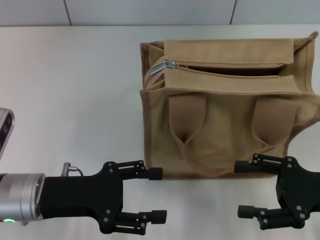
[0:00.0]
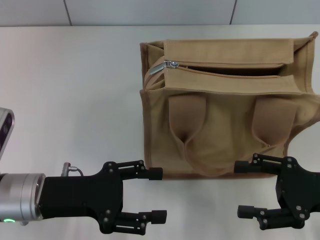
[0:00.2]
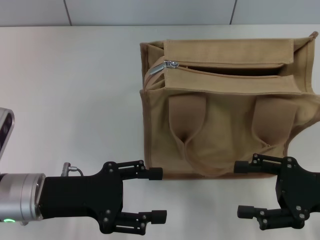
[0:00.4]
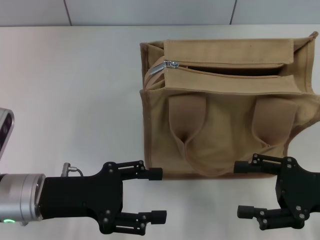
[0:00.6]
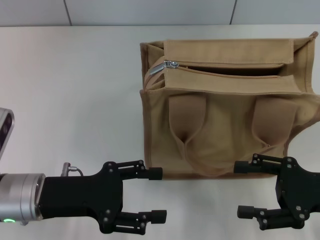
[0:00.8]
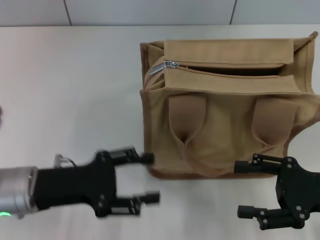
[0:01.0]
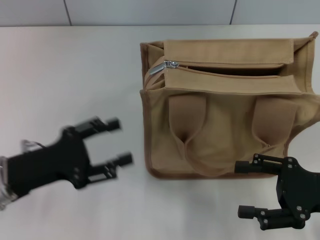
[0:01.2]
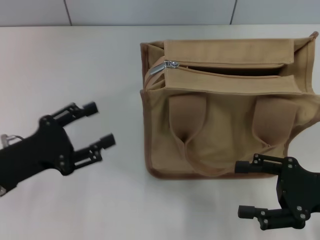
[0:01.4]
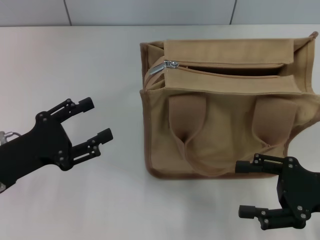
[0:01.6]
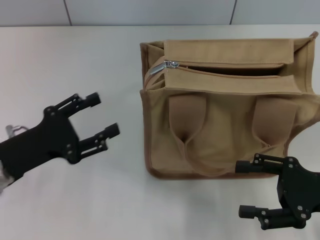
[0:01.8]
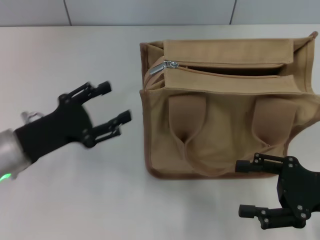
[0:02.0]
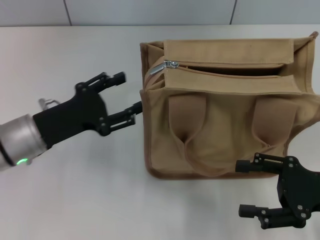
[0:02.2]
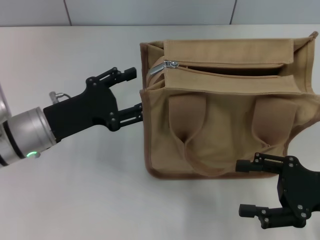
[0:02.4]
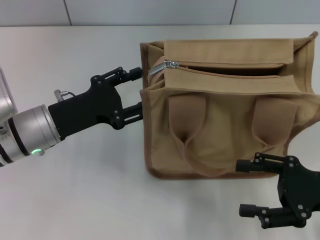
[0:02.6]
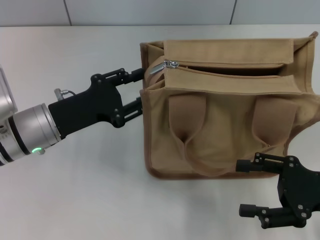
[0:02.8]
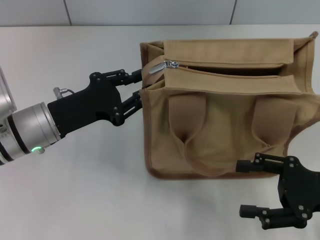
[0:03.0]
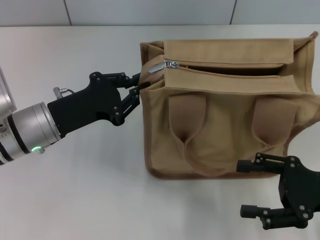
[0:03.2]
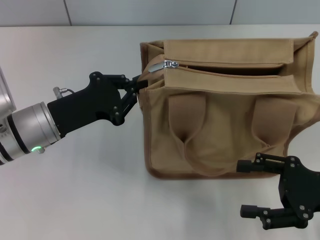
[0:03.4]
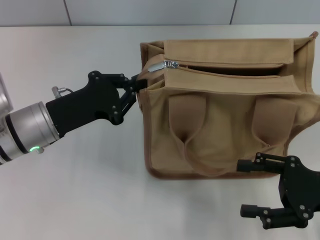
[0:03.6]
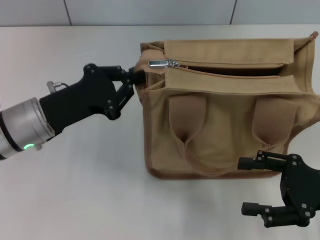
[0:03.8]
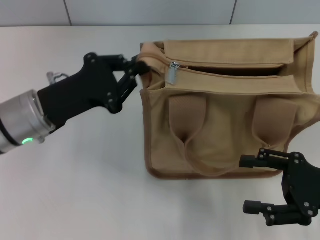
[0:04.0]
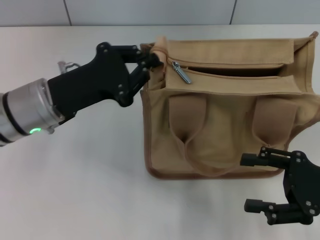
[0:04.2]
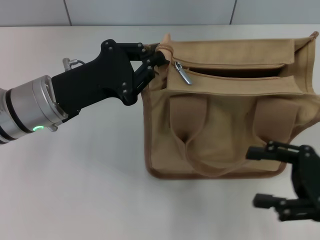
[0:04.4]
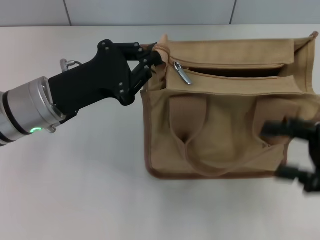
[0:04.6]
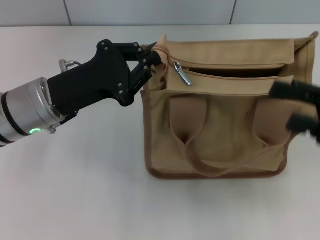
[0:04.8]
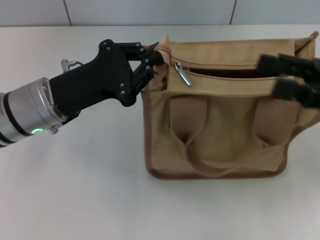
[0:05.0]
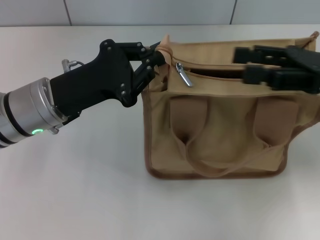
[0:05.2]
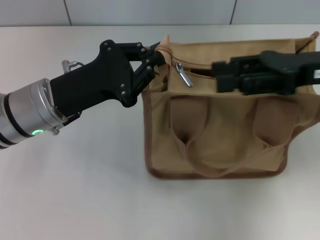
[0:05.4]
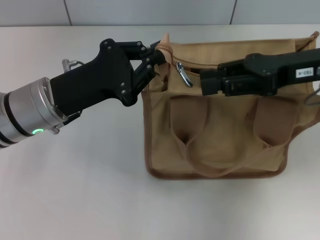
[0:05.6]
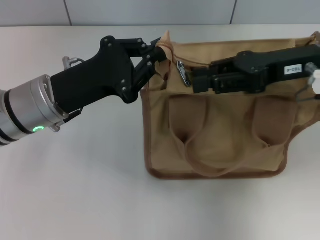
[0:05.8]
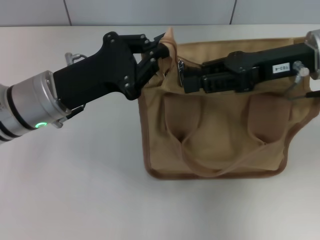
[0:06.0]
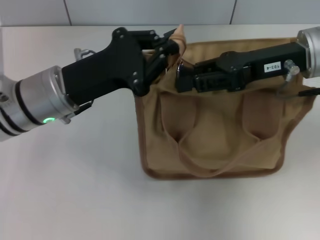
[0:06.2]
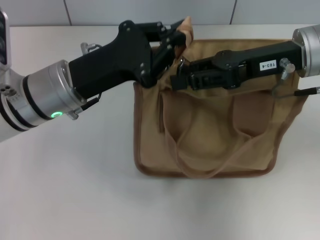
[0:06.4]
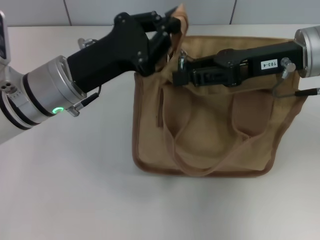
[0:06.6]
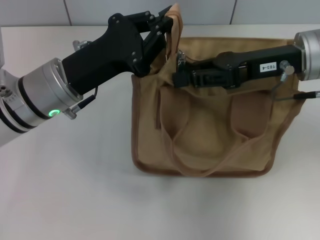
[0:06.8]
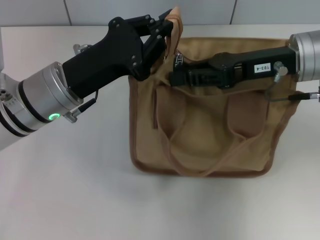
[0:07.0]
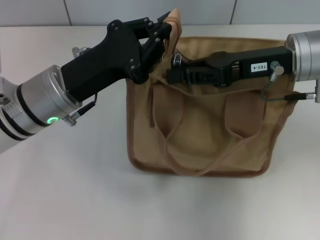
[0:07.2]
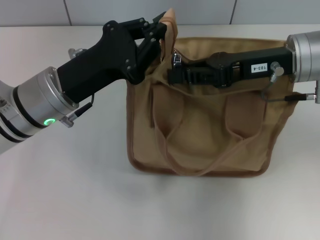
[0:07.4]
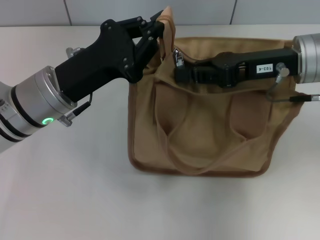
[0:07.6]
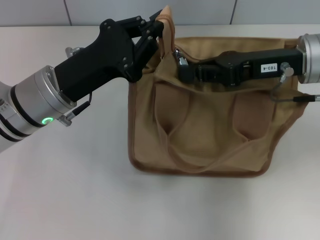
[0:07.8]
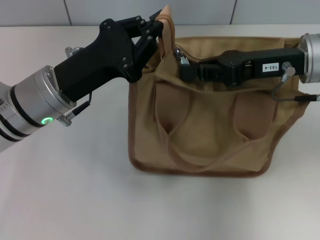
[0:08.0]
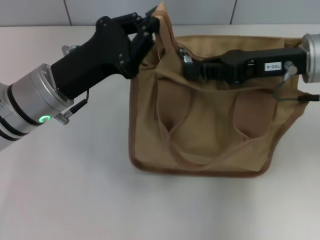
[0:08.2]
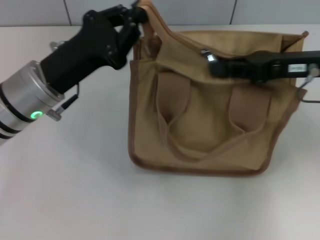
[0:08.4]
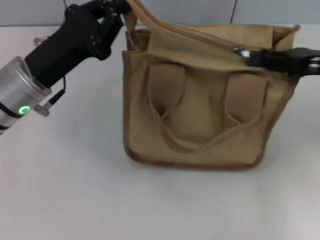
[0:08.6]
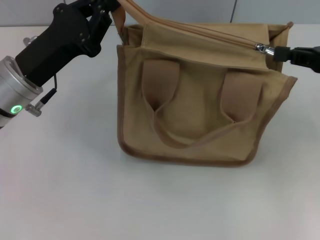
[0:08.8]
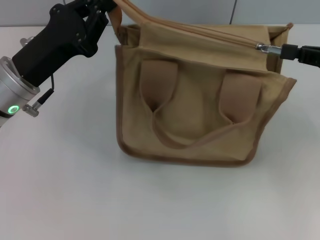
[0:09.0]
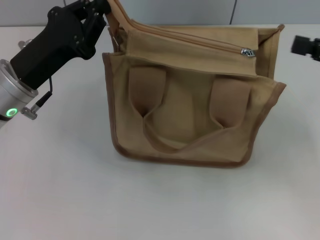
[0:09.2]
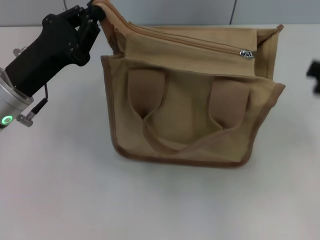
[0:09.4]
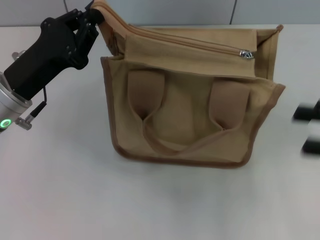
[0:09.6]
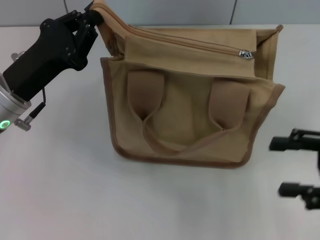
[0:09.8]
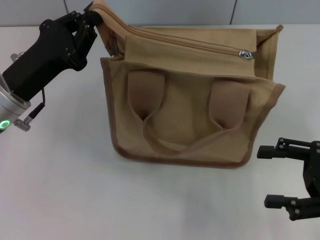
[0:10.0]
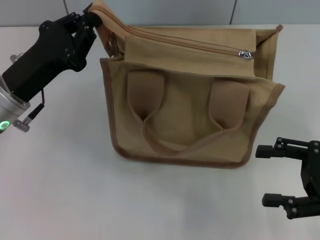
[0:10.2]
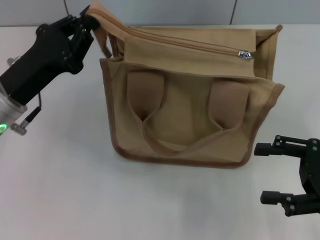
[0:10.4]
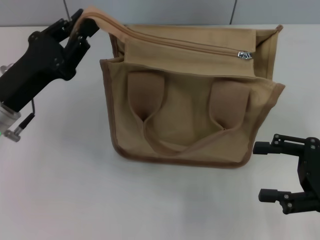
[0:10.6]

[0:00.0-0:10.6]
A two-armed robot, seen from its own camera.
Step, 0:00.0 to 0:09.0: Pull up the zipper with your right hand.
0:00.0 to 0:01.6: The left gripper is displaced to the left by about 5 cm.
0:01.6 to 0:03.0: The left gripper heads forward and to the right, covering about 10 cm.
0:03.0 to 0:04.6: The left gripper closes.
0:04.6 to 0:06.0: The right gripper travels forward, to the left and upward by some 15 cm, and closes up.
0:06.0 to 0:07.6: The right gripper closes.
0:07.6 to 0:09.0: The right gripper goes about 15 cm to the right.
0:09.0 to 0:10.6: The right gripper heads backward and downward, covering approximately 10 cm, and opens up.

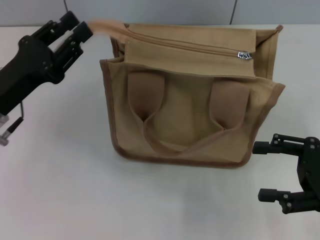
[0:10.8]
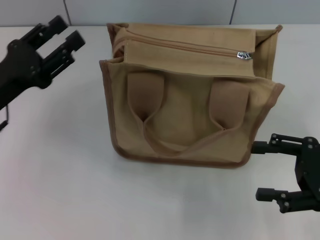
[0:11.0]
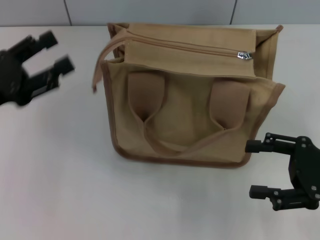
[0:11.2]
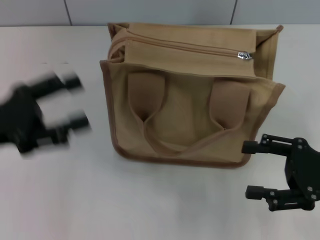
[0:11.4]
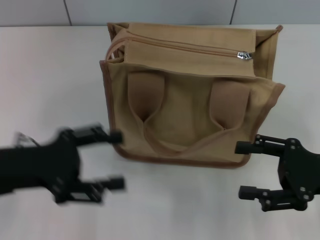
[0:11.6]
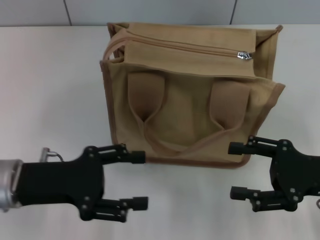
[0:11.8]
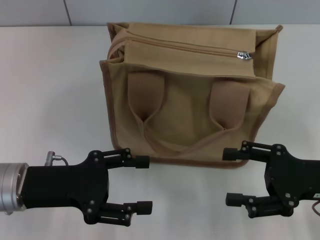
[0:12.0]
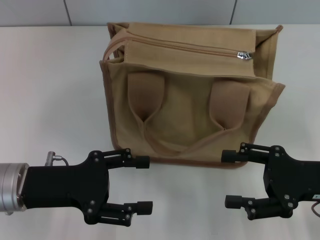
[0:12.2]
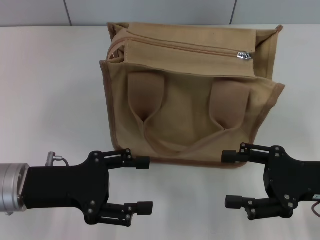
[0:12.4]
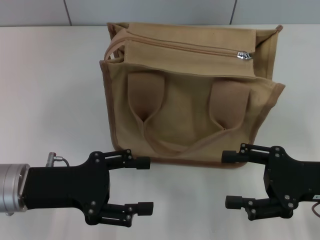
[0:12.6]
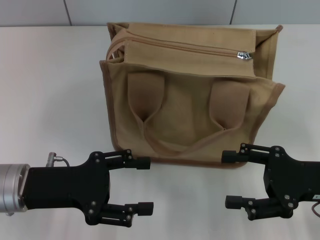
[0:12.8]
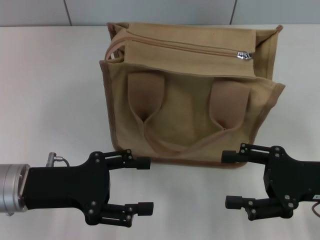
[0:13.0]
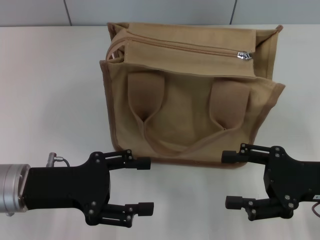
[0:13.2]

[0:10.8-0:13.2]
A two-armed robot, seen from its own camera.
0:10.8 to 0:12.0: The left gripper changes place by approximately 5 cm, and opens up.
0:12.0 to 0:13.2: The two grippers keep their place.

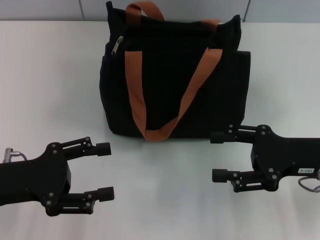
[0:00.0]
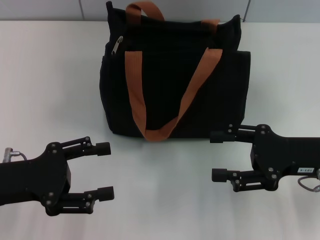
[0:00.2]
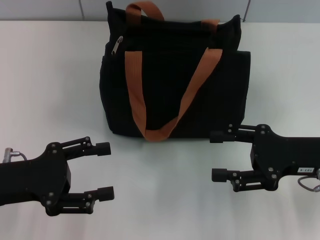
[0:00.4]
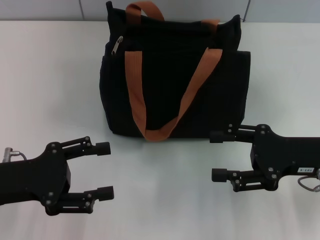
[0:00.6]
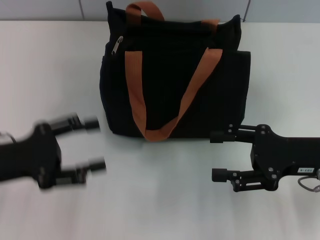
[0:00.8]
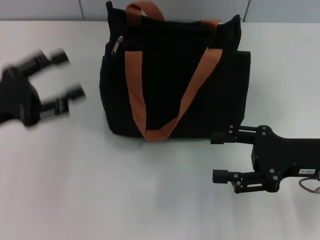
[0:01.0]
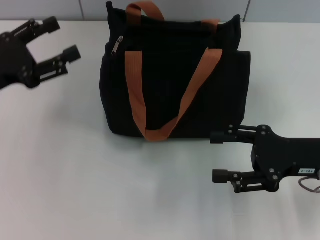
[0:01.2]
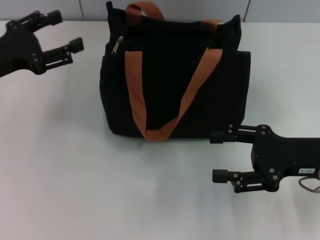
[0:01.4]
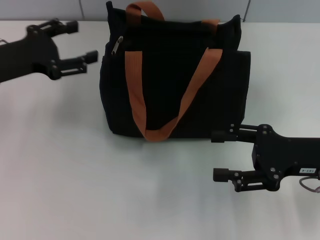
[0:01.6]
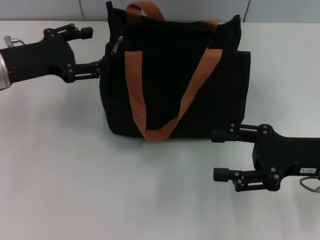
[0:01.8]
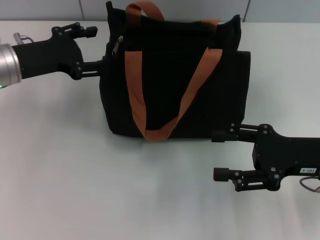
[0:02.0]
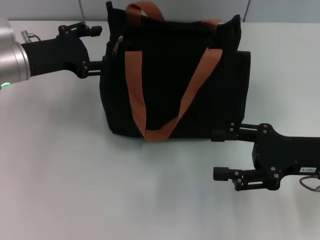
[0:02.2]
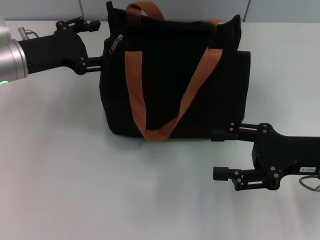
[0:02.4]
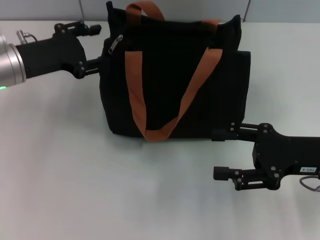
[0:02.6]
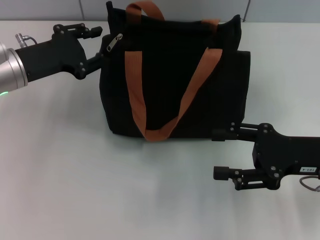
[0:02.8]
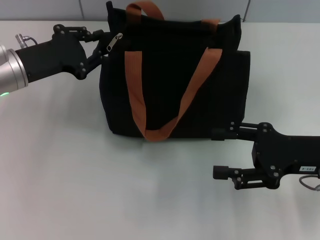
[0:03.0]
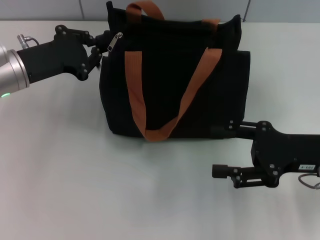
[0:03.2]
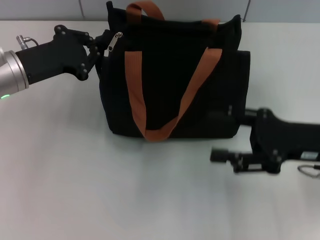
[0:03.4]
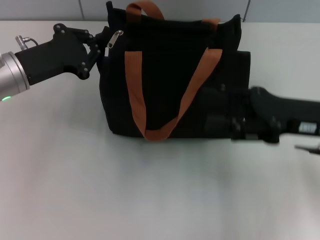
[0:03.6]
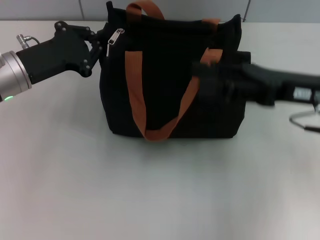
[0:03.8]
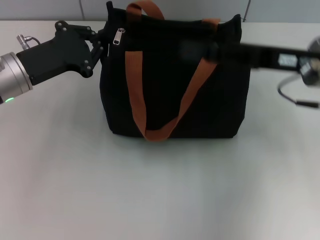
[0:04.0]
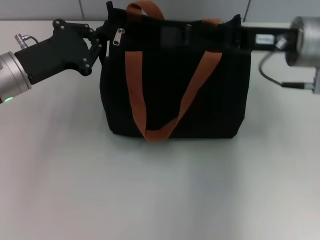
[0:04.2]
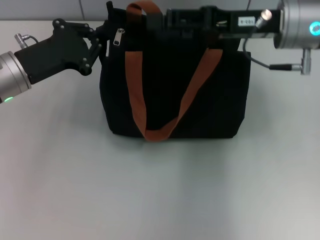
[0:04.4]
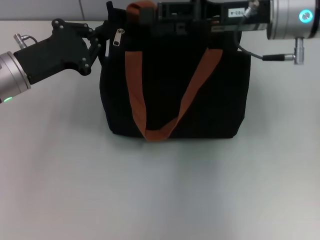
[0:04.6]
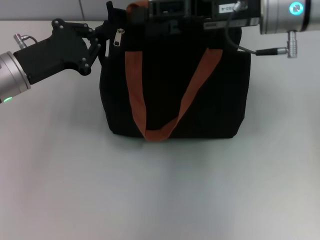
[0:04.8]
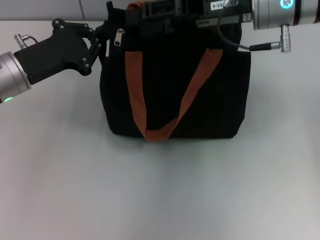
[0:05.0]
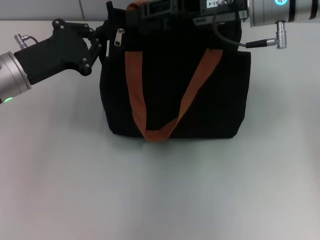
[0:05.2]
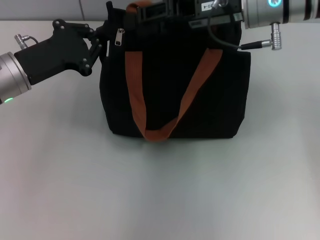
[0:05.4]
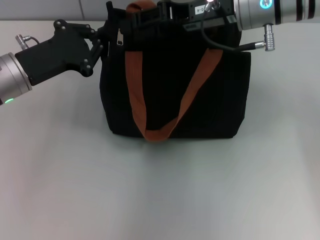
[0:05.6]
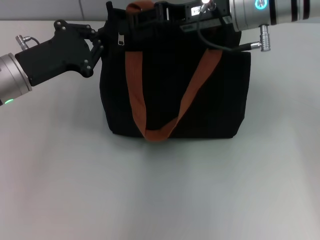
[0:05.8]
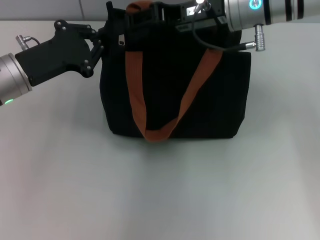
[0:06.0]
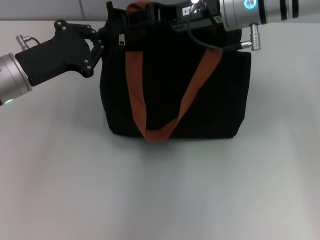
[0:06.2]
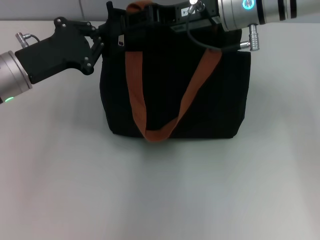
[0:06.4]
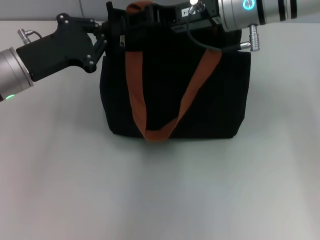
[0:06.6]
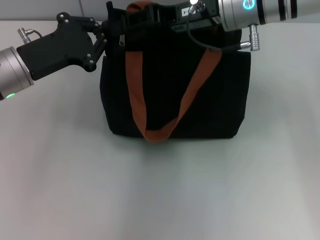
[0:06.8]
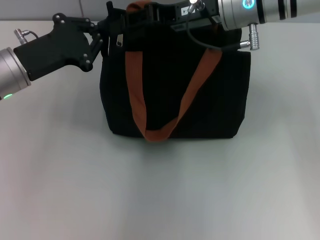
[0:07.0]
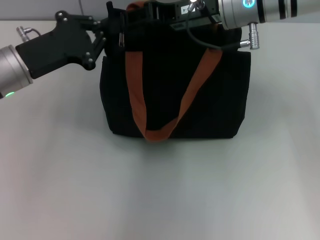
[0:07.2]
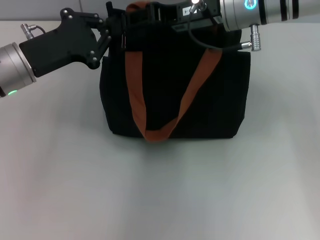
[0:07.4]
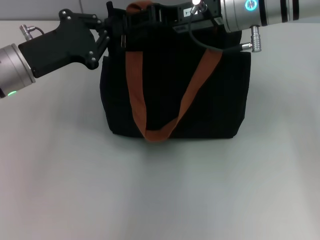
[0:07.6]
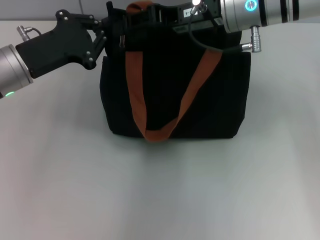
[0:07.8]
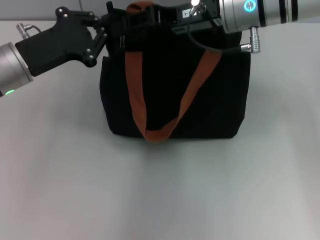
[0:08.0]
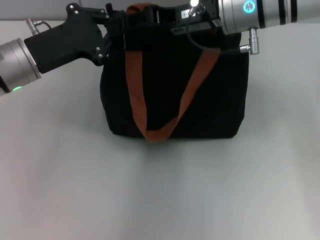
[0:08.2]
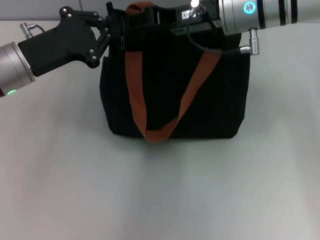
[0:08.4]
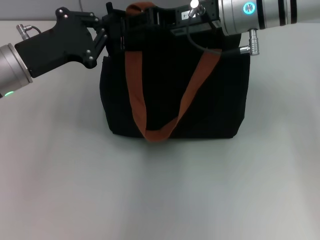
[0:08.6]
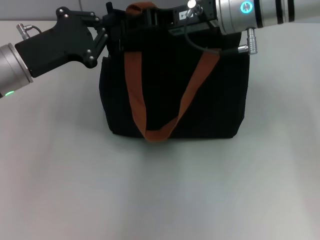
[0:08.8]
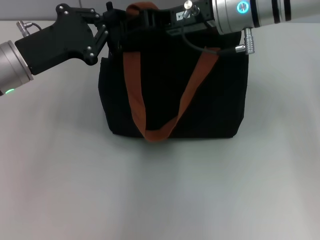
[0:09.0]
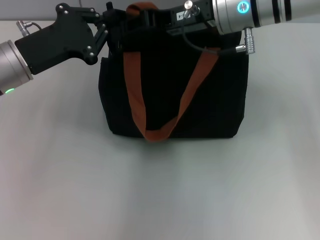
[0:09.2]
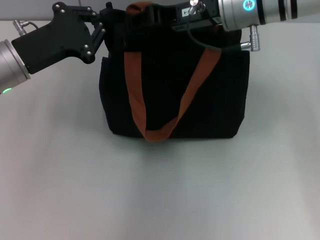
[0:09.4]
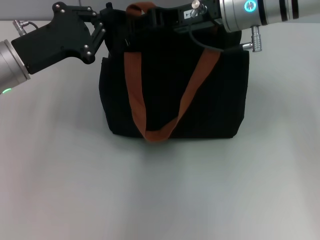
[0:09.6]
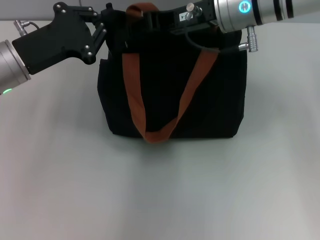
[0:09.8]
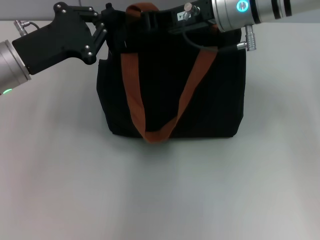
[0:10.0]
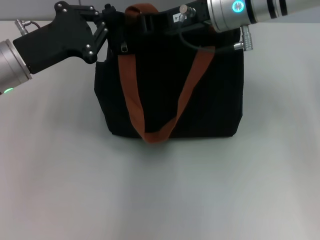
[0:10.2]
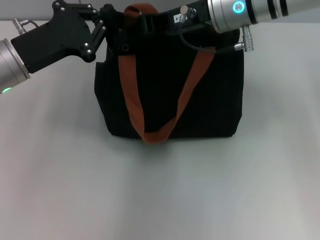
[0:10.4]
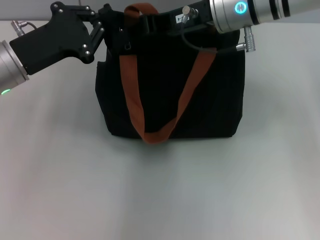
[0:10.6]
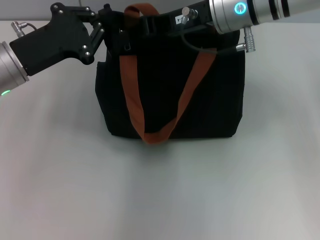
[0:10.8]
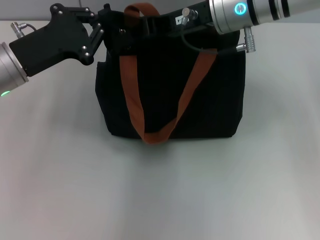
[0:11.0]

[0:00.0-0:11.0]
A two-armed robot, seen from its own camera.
0:00.0 to 0:01.6: The left gripper goes roughly 15 cm forward.
0:01.6 to 0:03.2: The left gripper closes.
0:03.2 to 0:04.8: The right gripper heads forward, upward and to the left, covering roughly 20 cm.
0:04.8 to 0:11.0: The grippers make only small movements.
